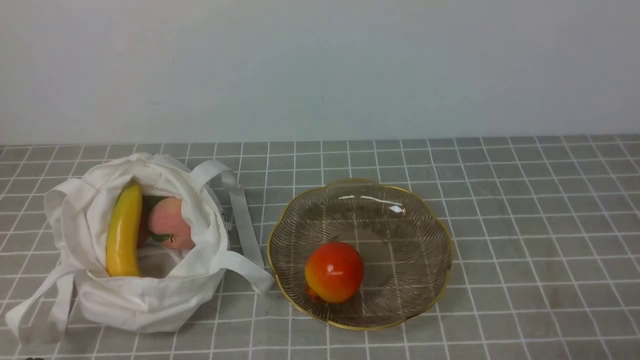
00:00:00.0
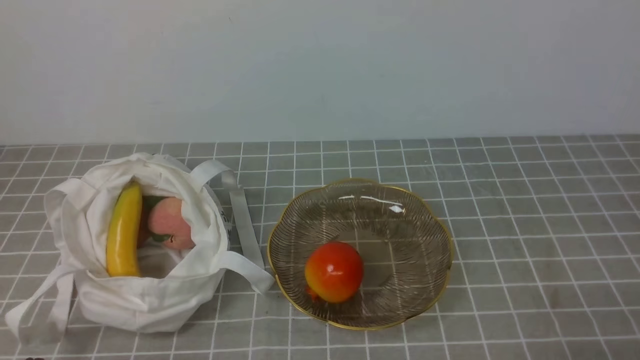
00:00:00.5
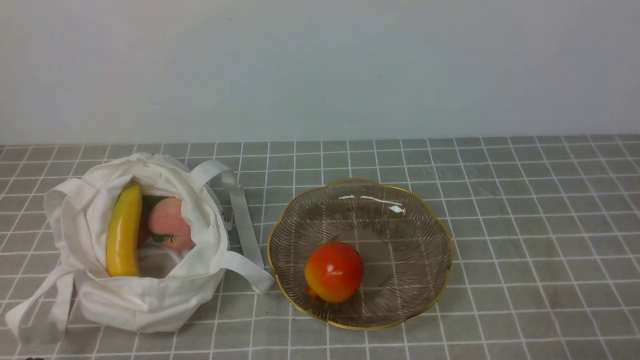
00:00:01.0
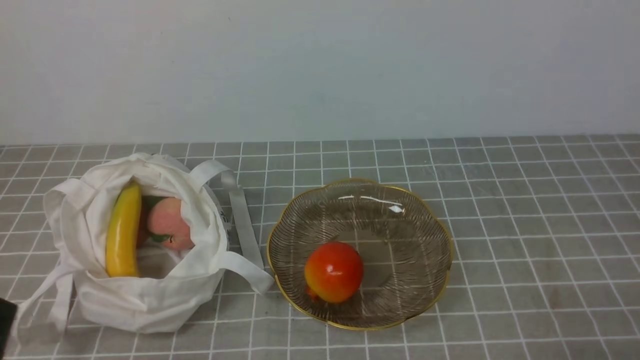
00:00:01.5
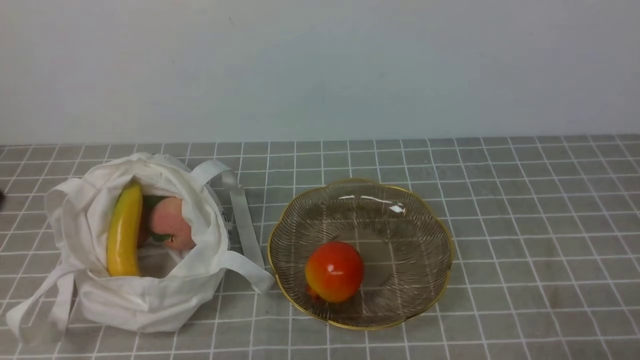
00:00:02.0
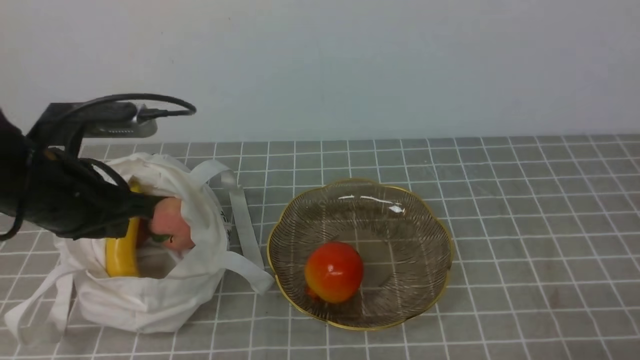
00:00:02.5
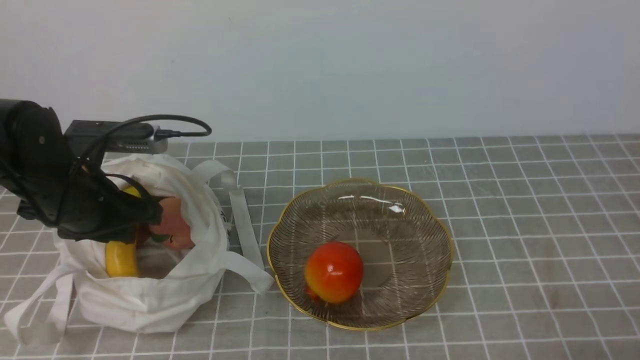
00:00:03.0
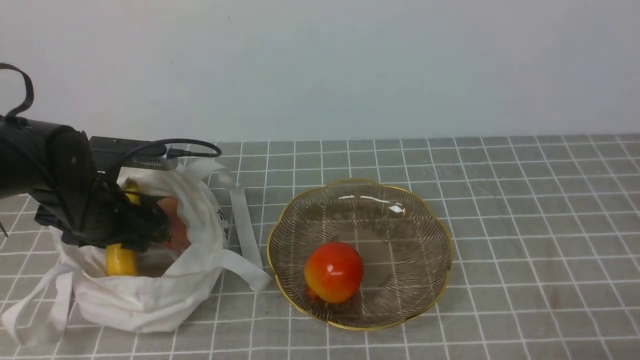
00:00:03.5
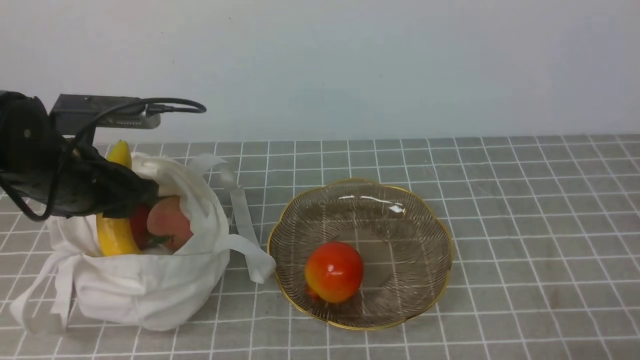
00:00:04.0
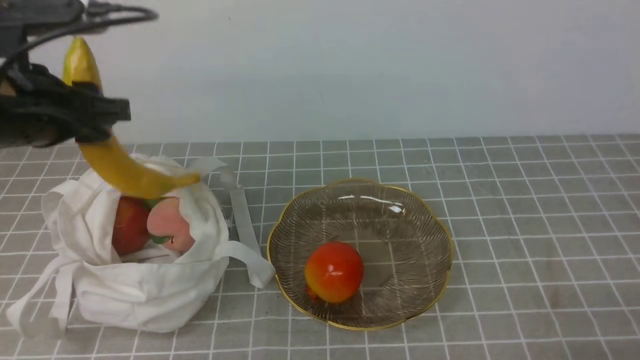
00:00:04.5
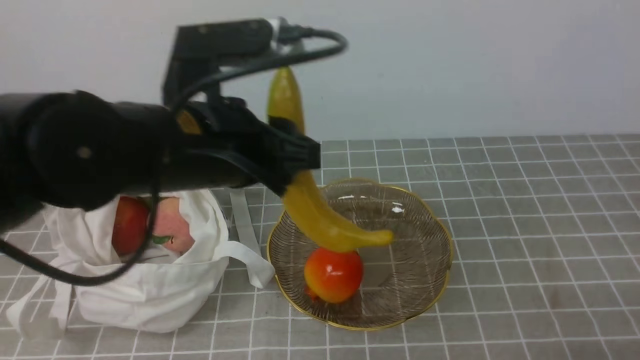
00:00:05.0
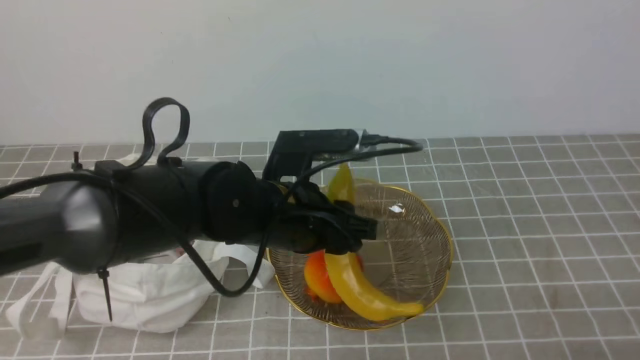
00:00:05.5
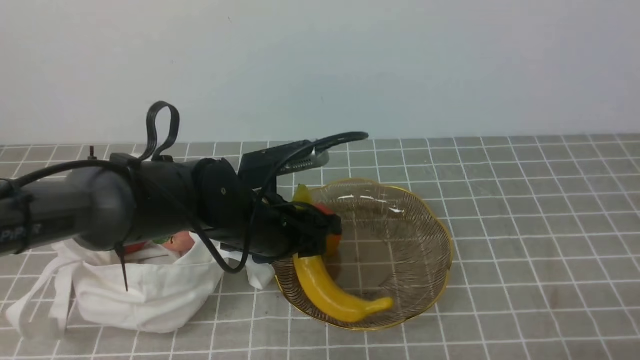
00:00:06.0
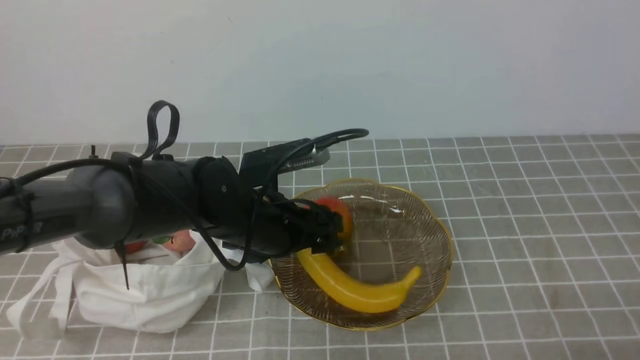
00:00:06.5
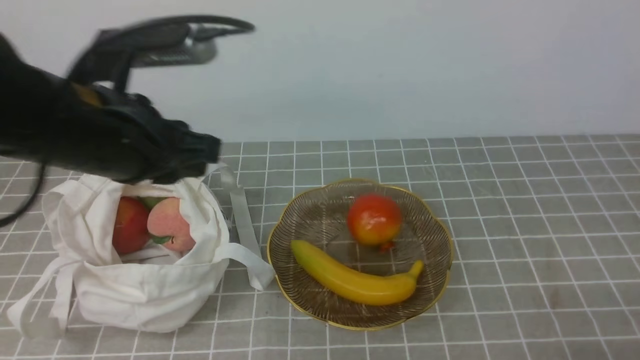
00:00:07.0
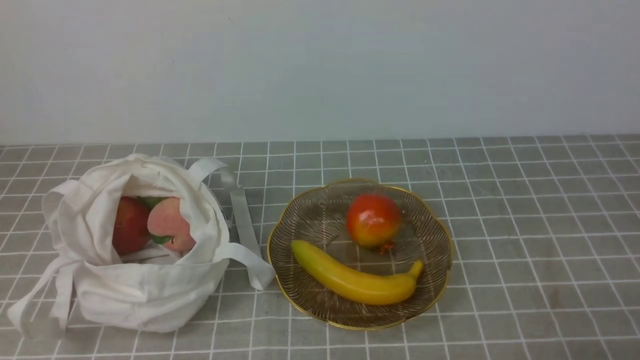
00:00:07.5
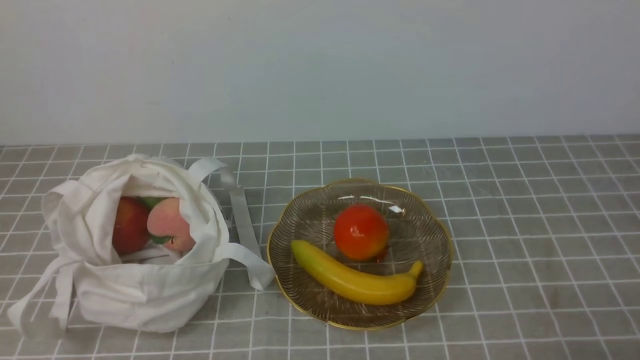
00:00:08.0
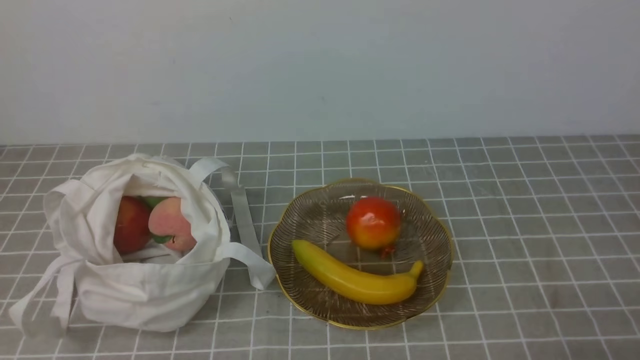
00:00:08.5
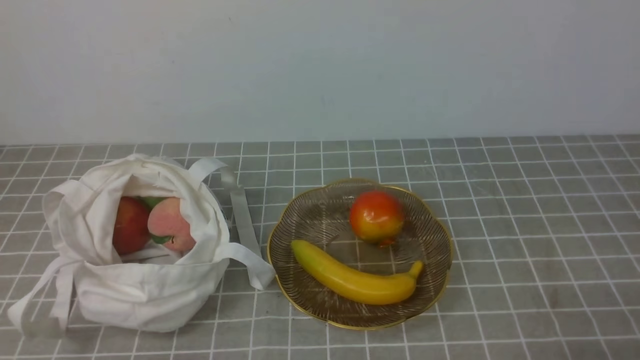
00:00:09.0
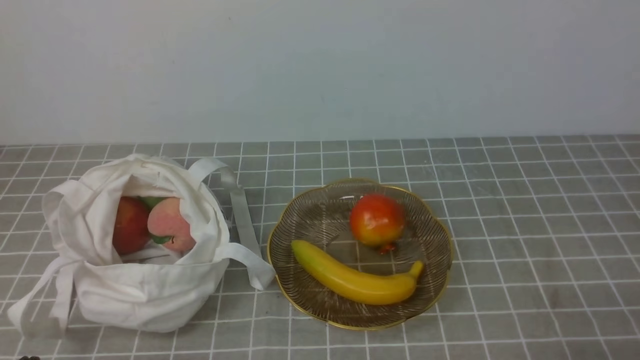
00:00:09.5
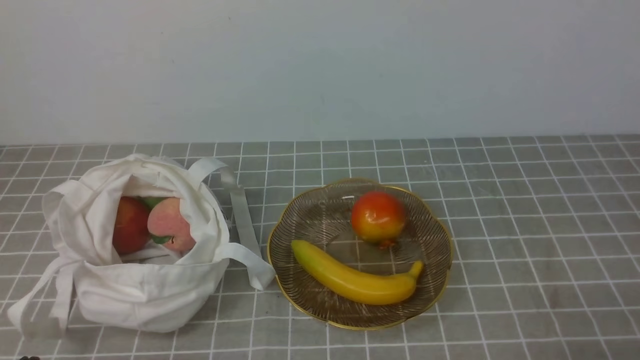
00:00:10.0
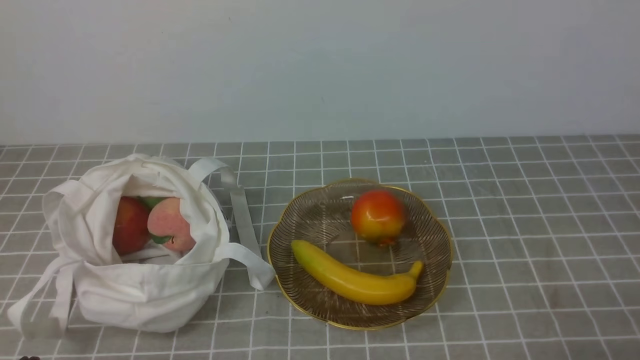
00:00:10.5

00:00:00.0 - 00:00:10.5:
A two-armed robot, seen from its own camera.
Step, 00:00:00.0 - 00:00:04.0: use the left arm to grab a banana from the bag.
Step, 00:00:04.5 - 00:00:06.5: use the left arm to put the banana into the empty plate on the right.
00:00:02.0 - 00:00:04.0: The left gripper travels forward by about 25 cm, and opens its fingers.
00:00:04.0 - 00:00:06.5: The left gripper is displaced to the right by some 15 cm, and opens its fingers.
00:00:06.5 - 00:00:08.5: The left gripper goes about 40 cm backward, to the left and upward, and closes up.
